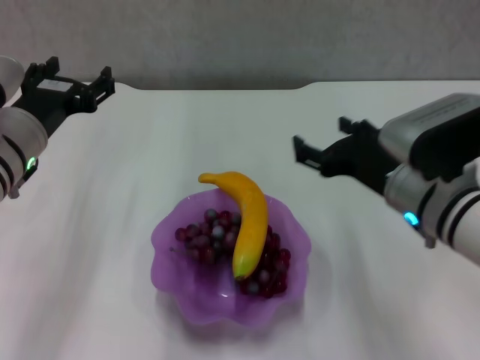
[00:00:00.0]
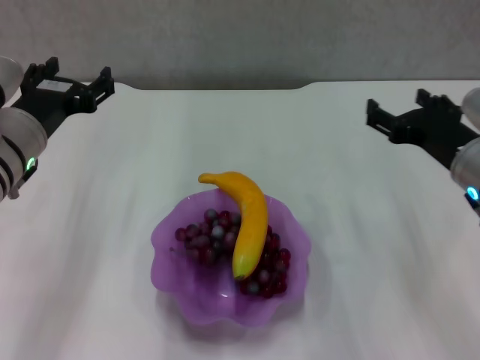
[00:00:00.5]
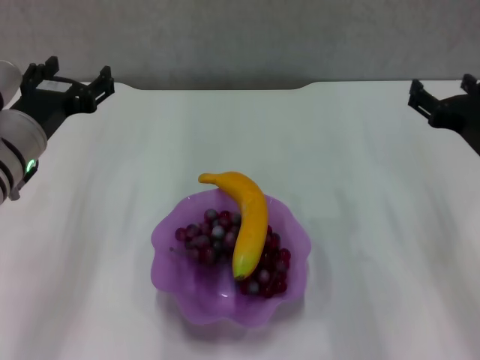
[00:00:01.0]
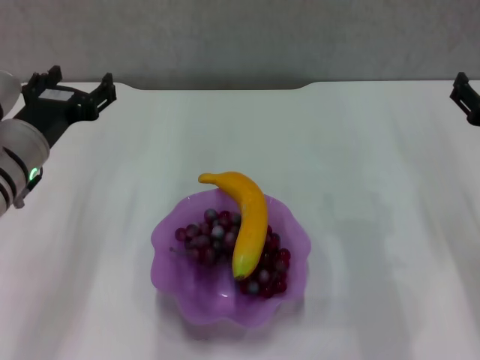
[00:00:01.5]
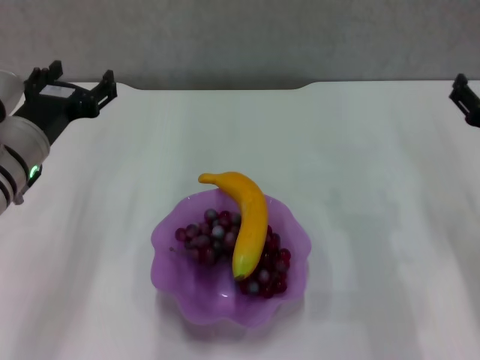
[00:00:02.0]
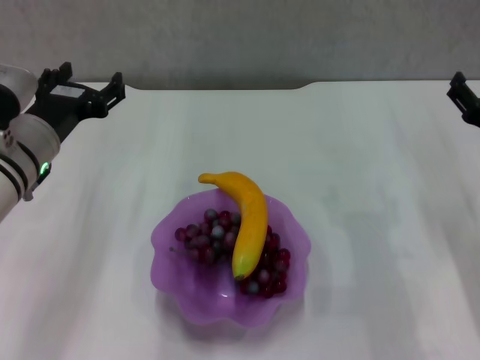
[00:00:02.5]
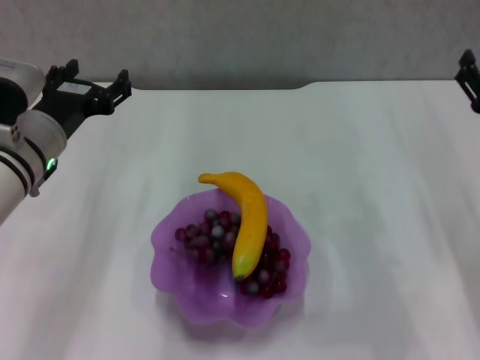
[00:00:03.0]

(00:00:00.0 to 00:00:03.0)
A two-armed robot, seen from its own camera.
00:00:00.0 - 00:00:01.5: The right gripper heads to the right, covering roughly 10 cm.
00:00:01.5 - 00:00:03.0: The grippers make only small movements.
